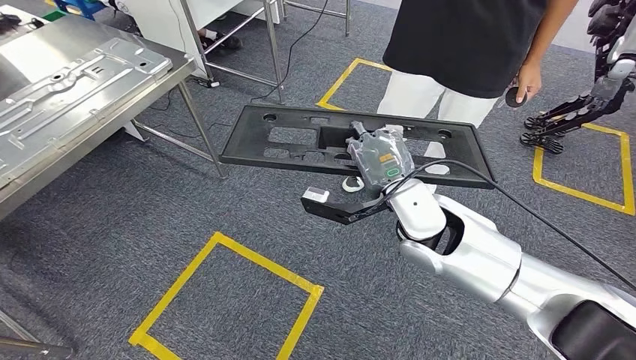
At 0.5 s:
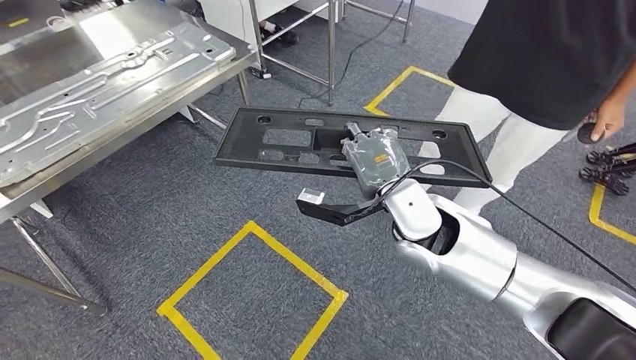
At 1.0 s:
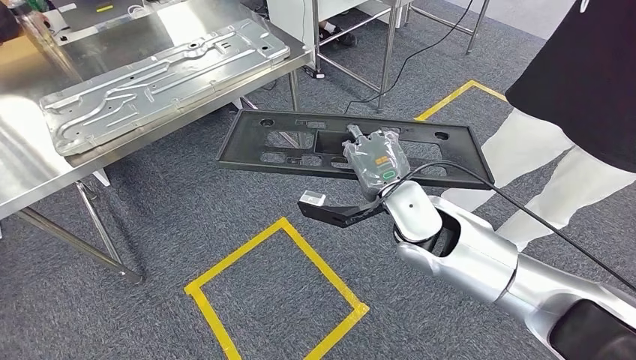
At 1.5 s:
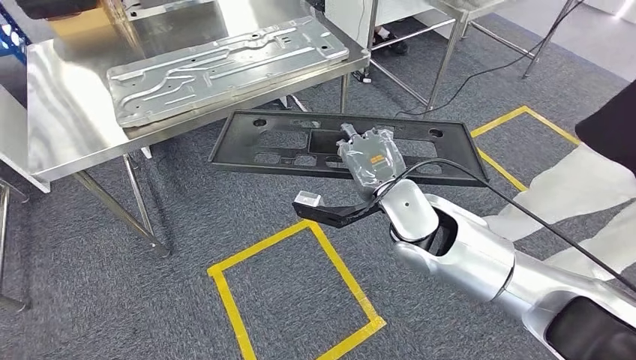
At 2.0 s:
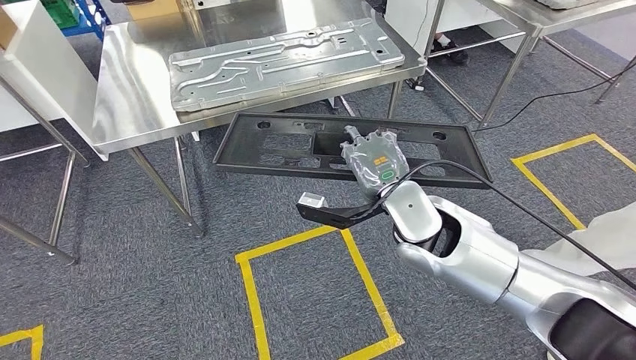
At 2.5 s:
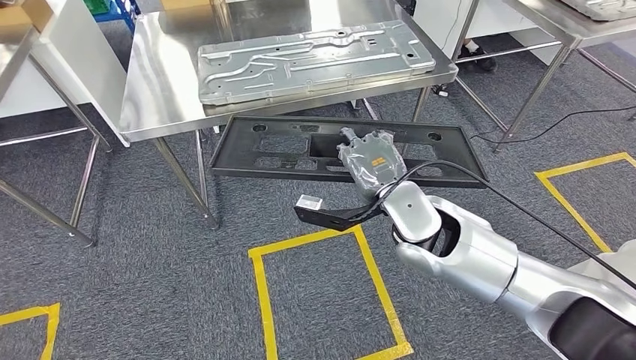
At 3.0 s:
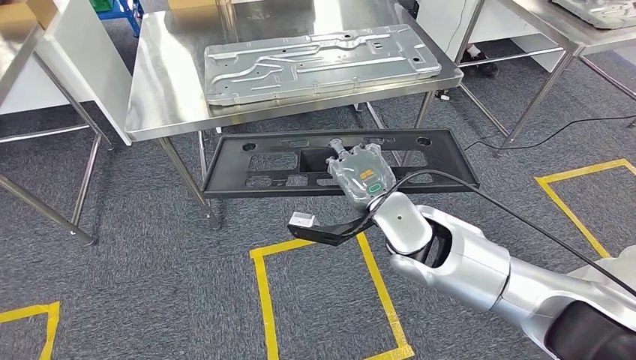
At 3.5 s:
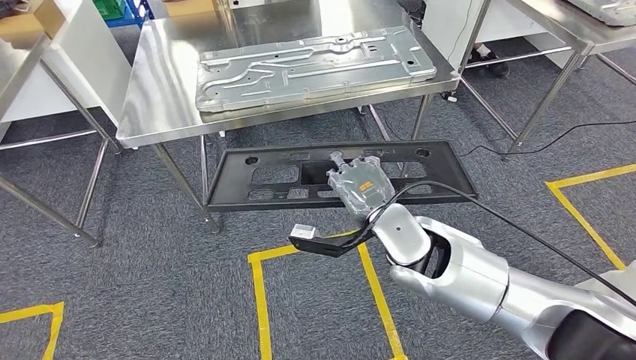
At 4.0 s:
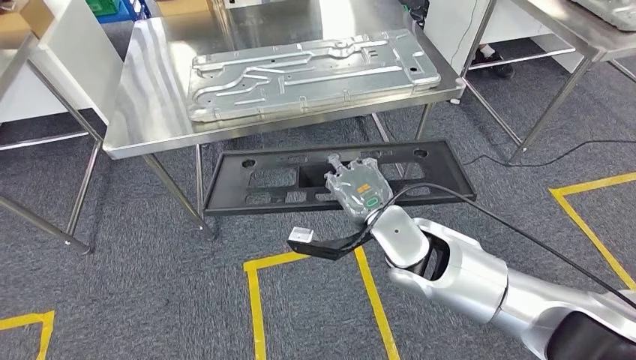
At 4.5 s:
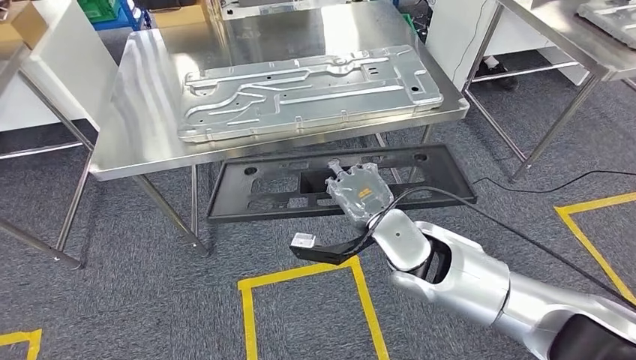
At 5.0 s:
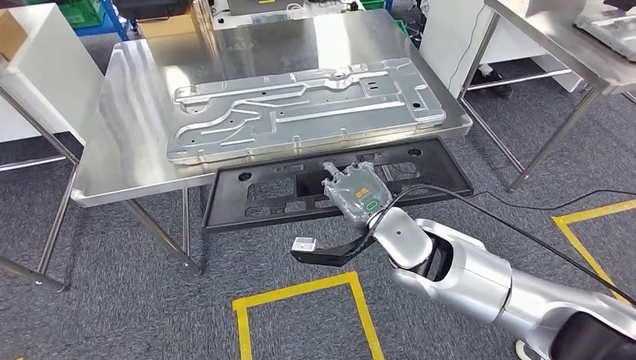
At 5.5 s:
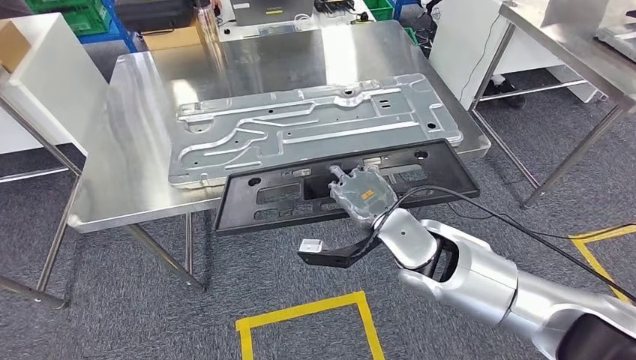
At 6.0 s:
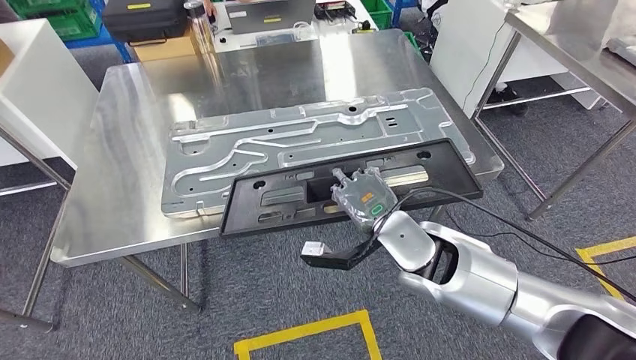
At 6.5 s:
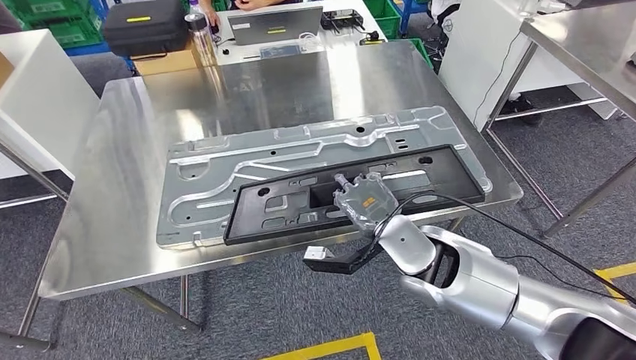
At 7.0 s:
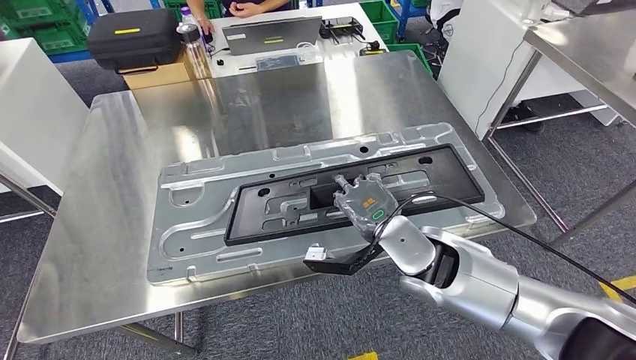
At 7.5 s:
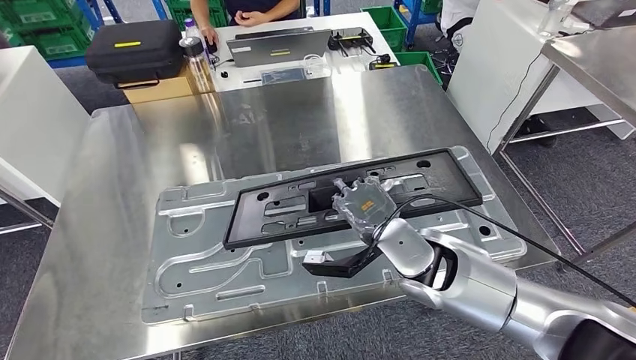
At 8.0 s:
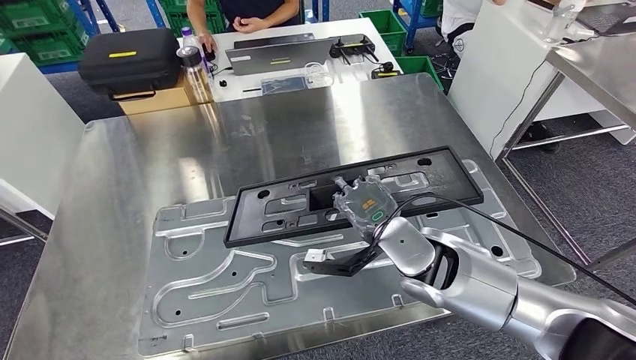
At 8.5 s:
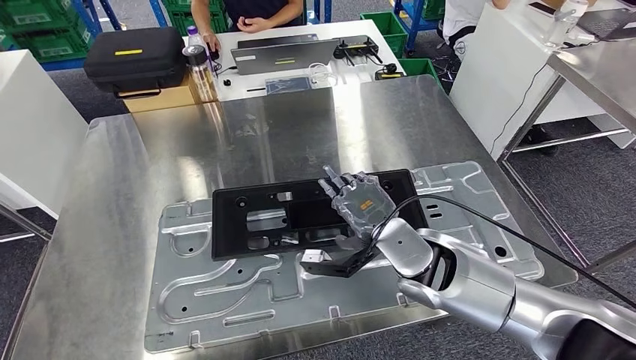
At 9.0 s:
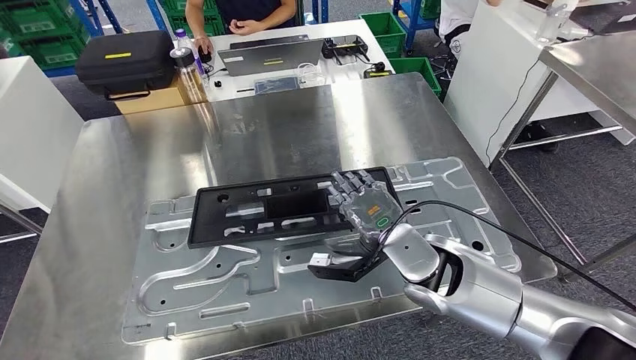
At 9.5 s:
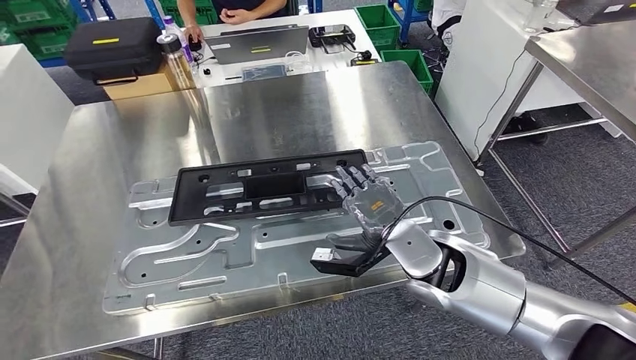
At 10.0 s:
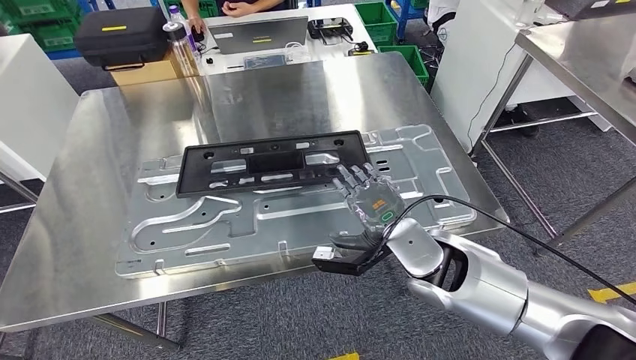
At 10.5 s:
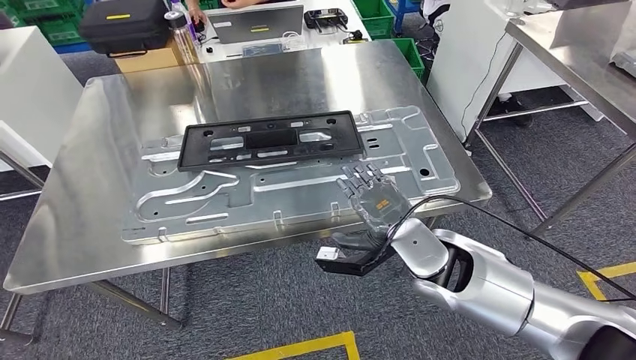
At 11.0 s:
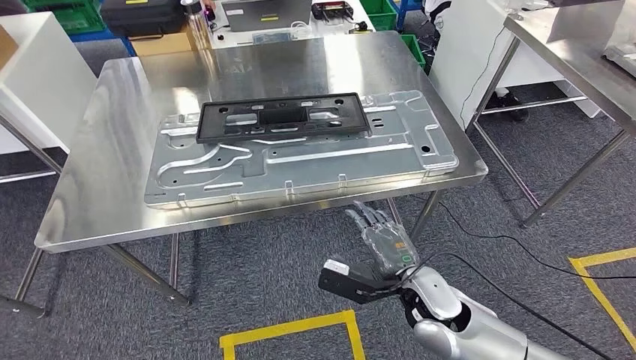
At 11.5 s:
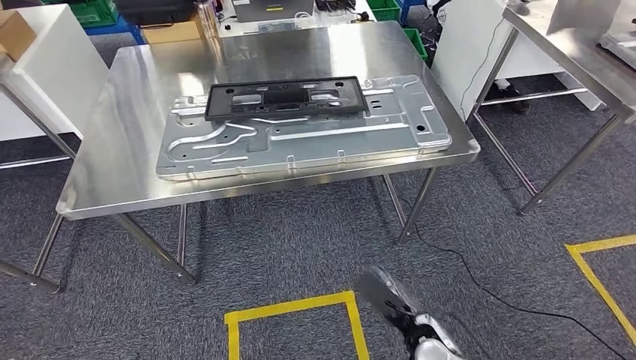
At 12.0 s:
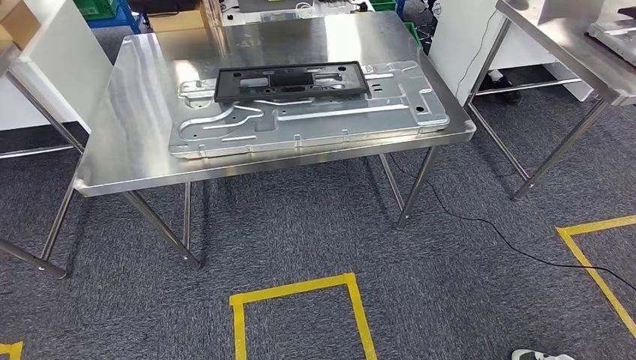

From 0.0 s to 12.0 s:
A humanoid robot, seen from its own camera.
Step, from 0.0 s to 5.5 s: Move the large material to the workbench.
Step, from 7.0 s to 9.5 s: Insert the large material into the corresponding slot on the workbench.

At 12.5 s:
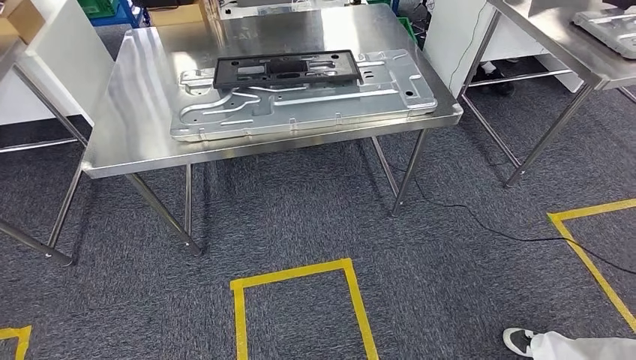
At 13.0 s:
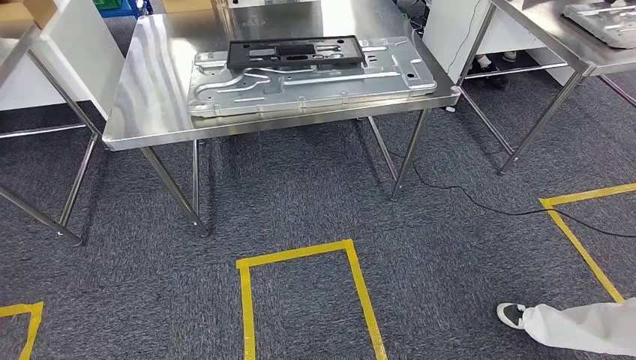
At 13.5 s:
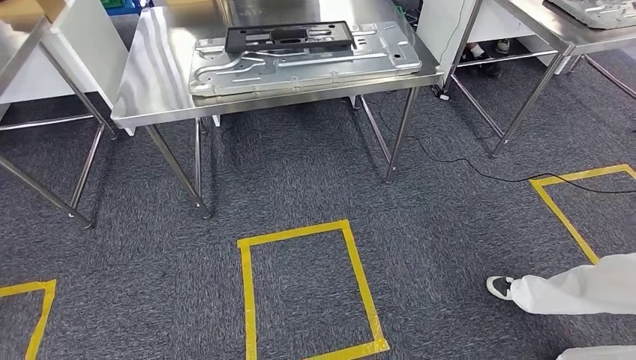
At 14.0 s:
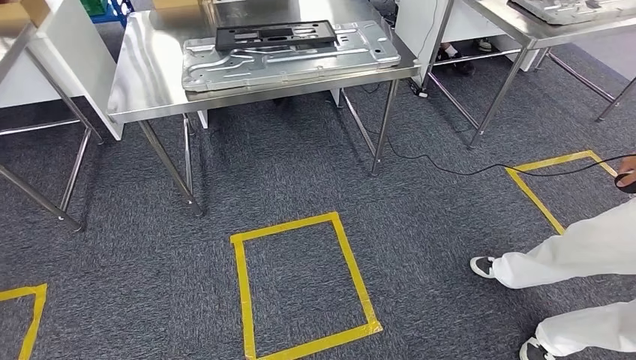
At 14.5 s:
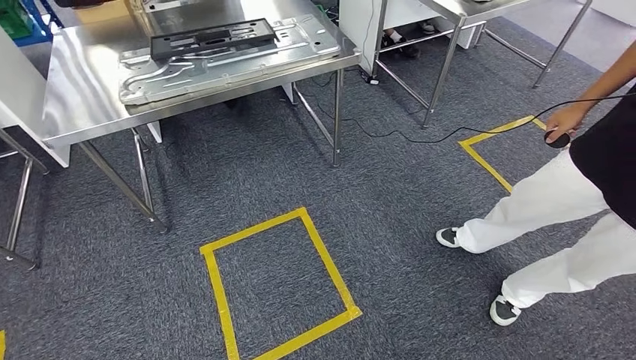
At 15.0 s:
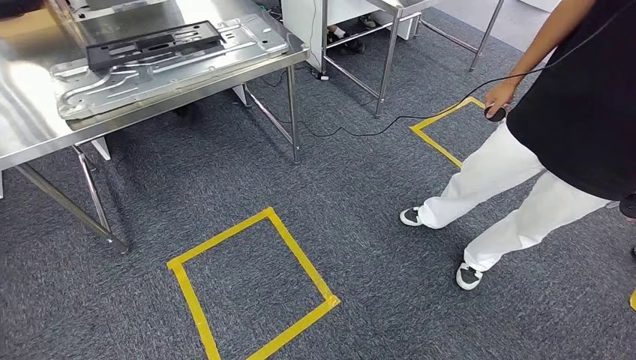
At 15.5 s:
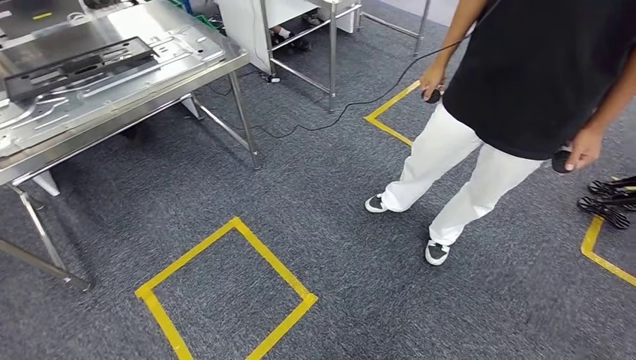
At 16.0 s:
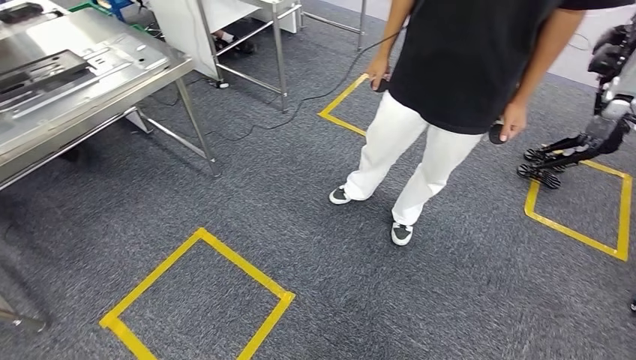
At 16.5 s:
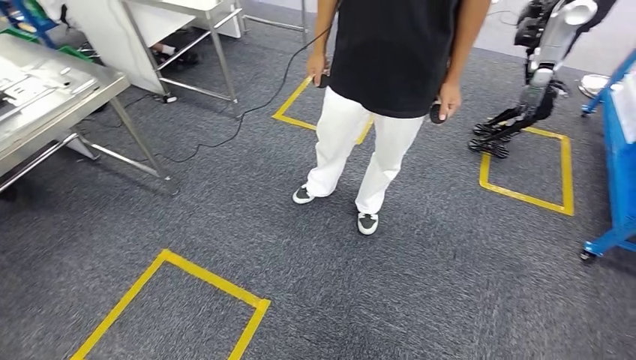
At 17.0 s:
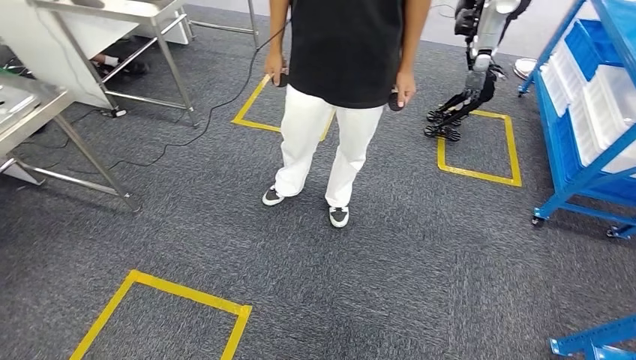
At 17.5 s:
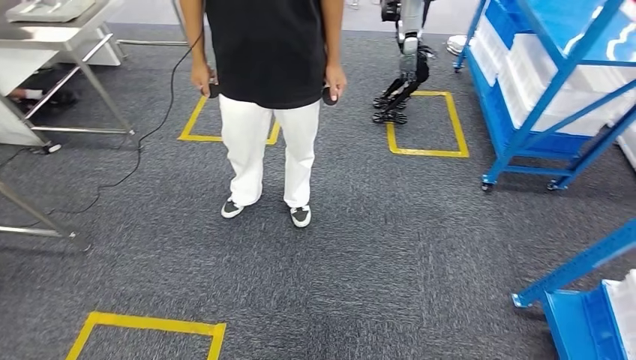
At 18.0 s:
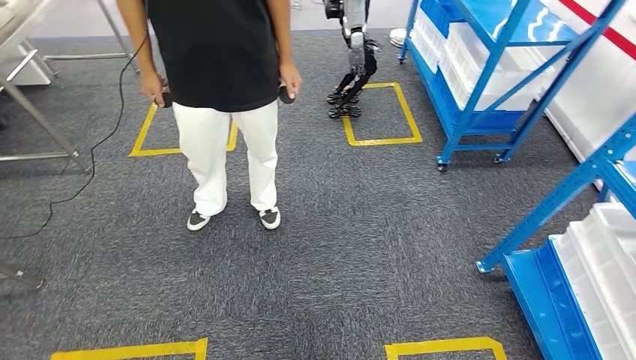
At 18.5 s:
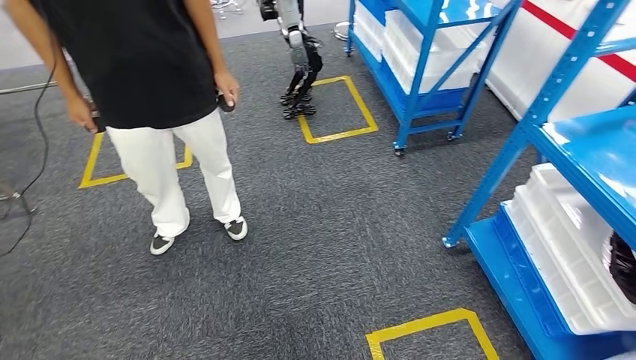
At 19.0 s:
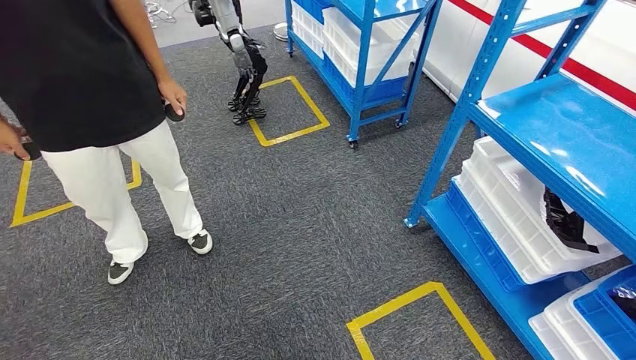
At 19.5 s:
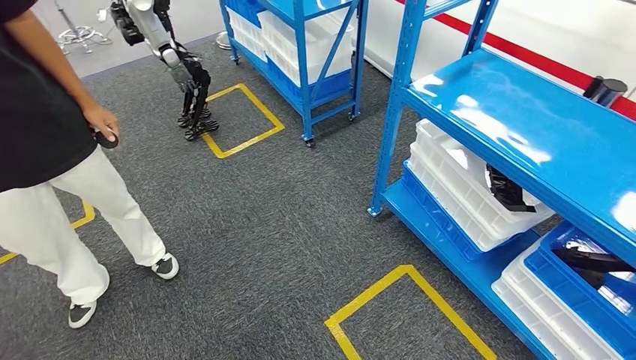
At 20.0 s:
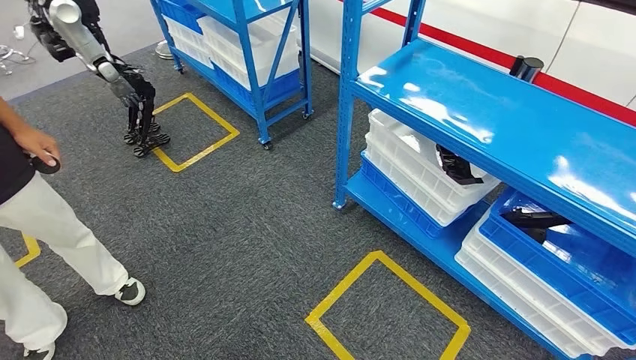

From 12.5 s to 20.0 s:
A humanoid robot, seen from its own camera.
Step, from 12.5 s to 20.0 s: Return to the initial position at the shelf.

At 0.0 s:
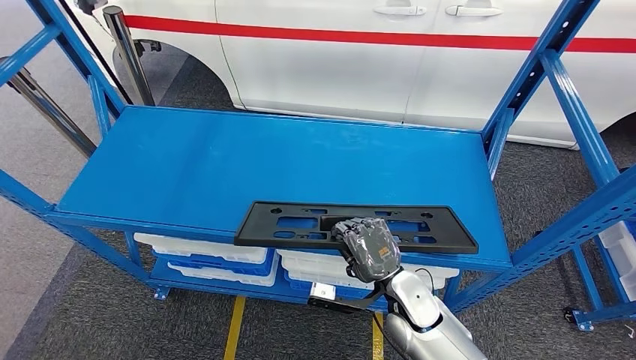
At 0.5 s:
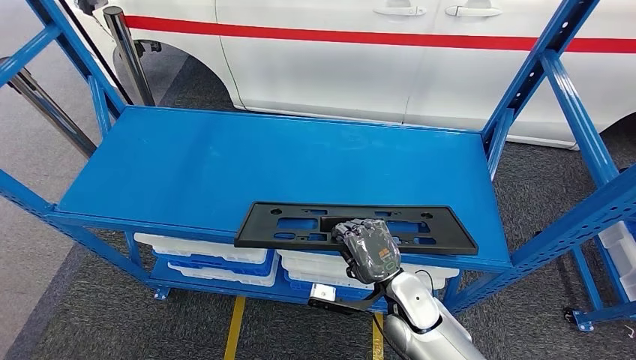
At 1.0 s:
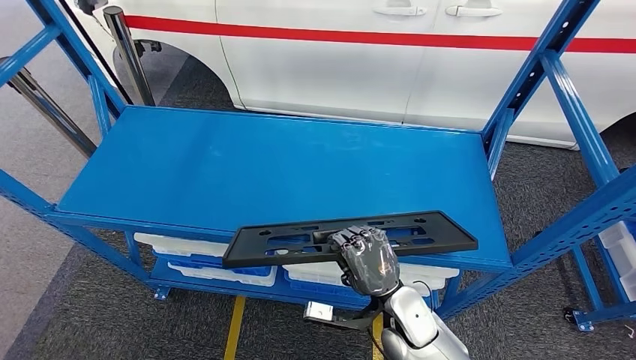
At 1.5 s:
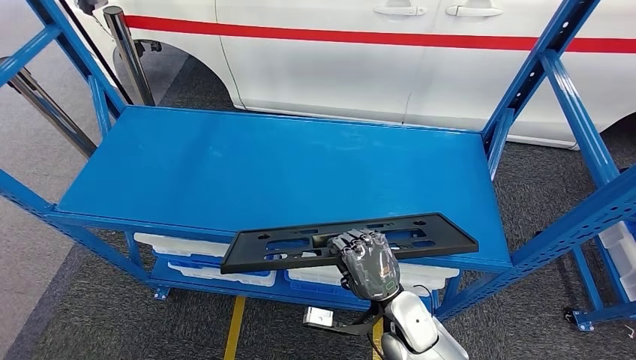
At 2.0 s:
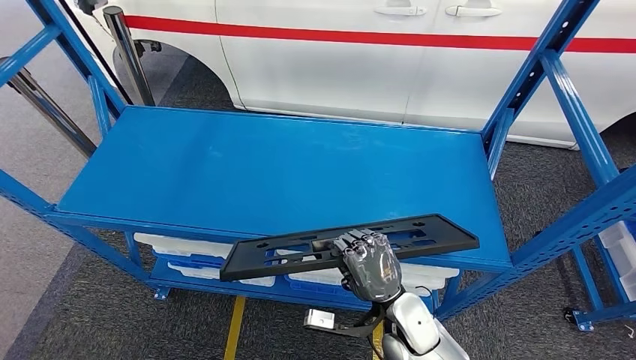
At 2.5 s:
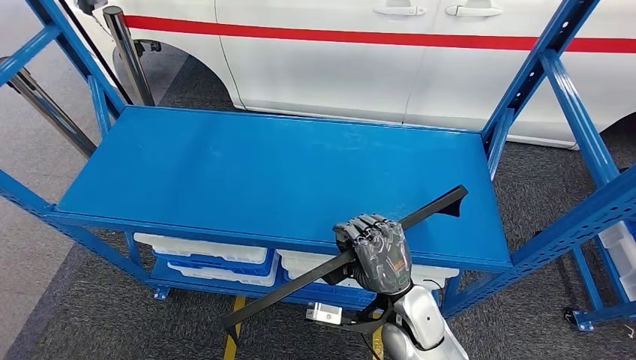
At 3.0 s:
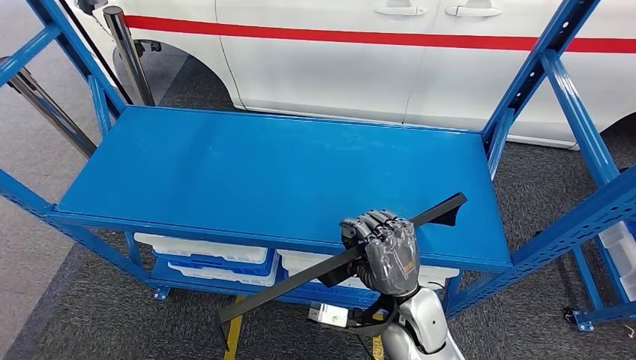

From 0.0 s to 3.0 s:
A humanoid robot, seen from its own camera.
From 0.0 s to 1.5 s: The hands make only small movements.
From 1.5 s to 3.0 s: The right hand shifts approximately 5 cm upward.
